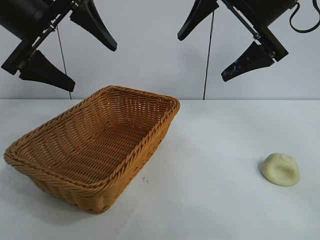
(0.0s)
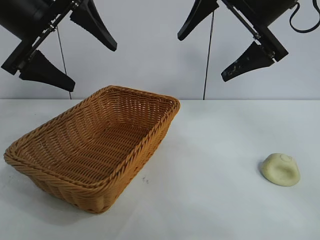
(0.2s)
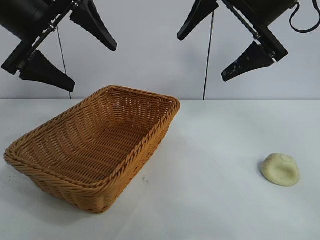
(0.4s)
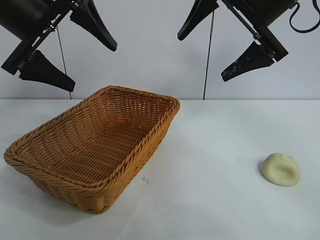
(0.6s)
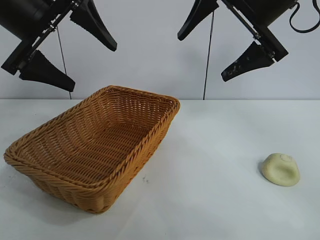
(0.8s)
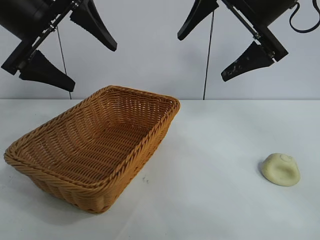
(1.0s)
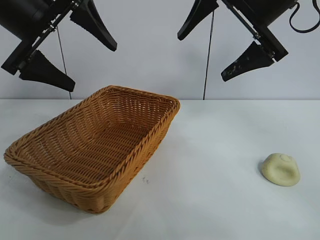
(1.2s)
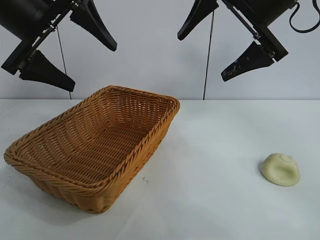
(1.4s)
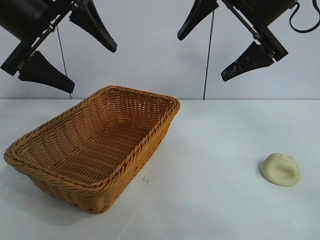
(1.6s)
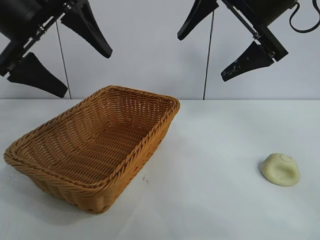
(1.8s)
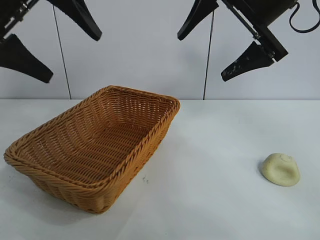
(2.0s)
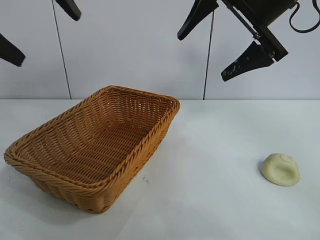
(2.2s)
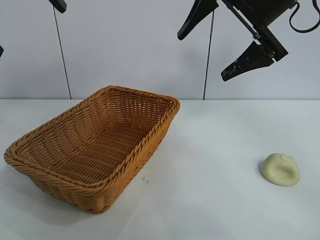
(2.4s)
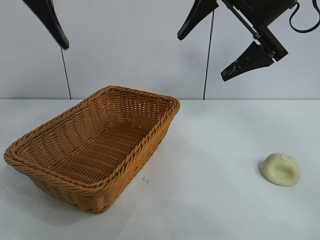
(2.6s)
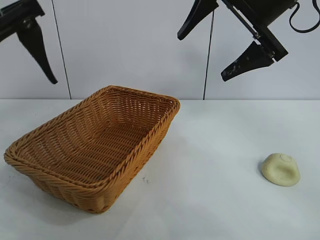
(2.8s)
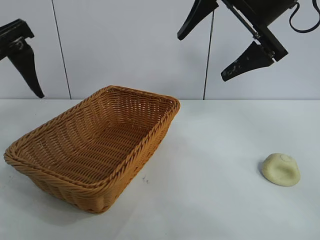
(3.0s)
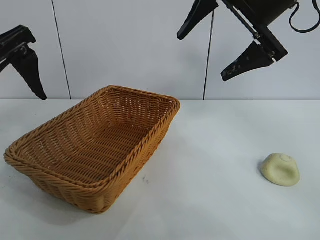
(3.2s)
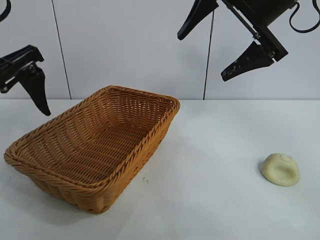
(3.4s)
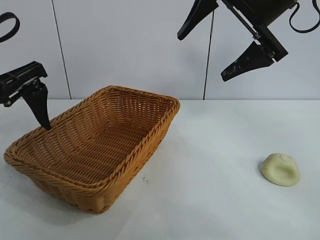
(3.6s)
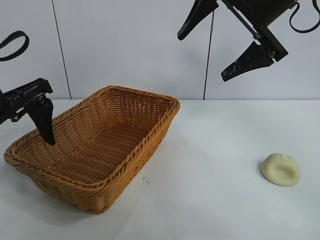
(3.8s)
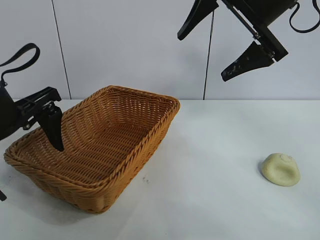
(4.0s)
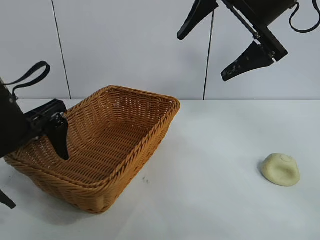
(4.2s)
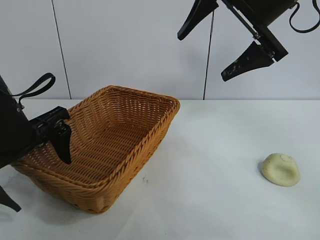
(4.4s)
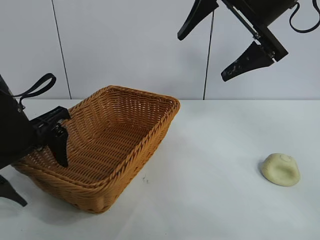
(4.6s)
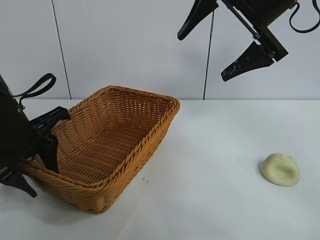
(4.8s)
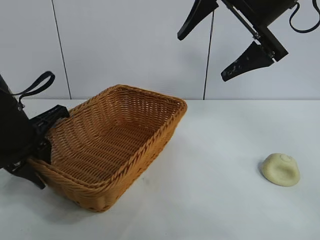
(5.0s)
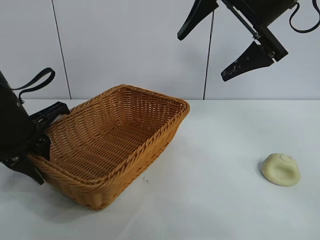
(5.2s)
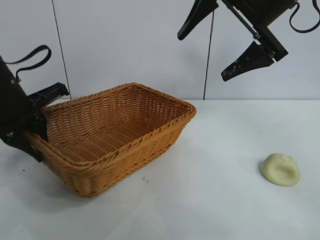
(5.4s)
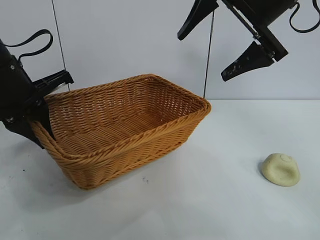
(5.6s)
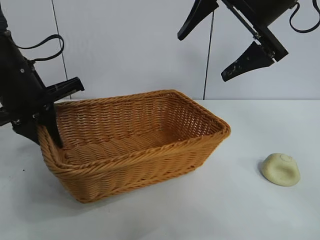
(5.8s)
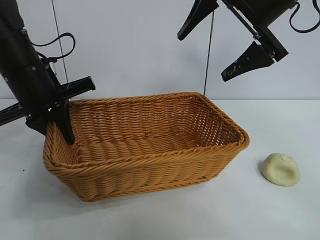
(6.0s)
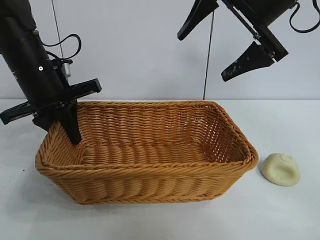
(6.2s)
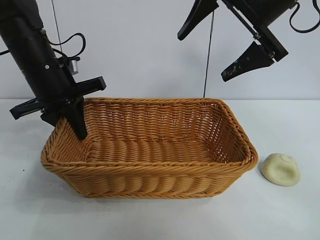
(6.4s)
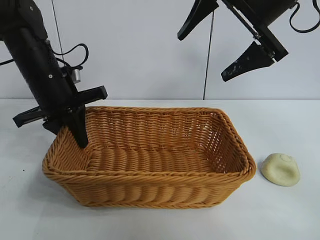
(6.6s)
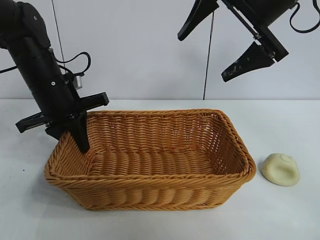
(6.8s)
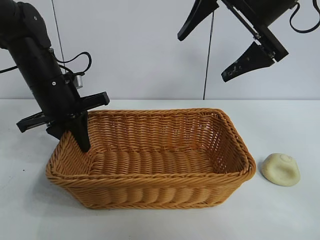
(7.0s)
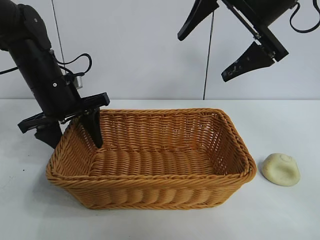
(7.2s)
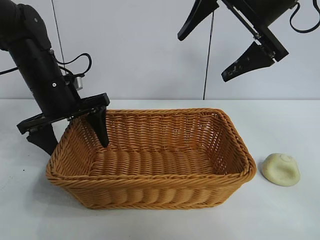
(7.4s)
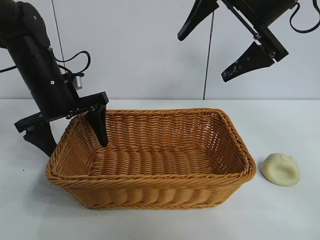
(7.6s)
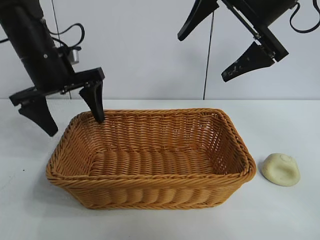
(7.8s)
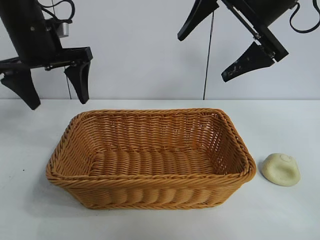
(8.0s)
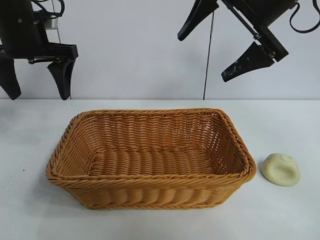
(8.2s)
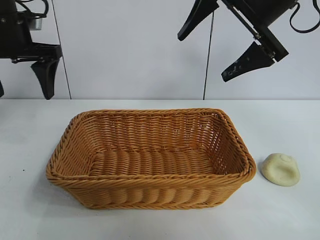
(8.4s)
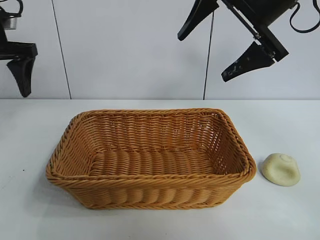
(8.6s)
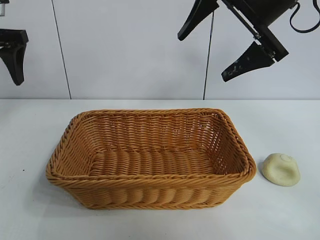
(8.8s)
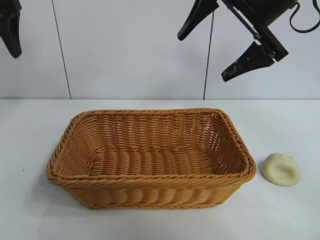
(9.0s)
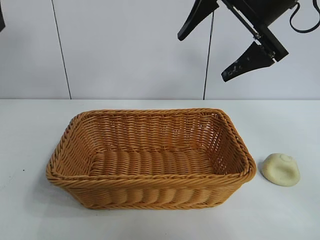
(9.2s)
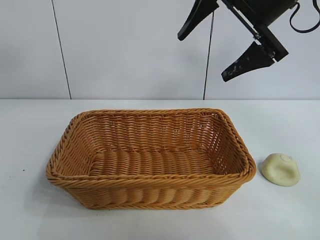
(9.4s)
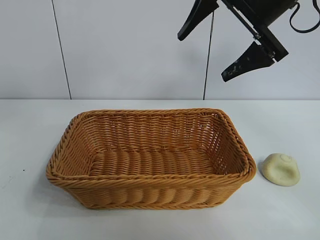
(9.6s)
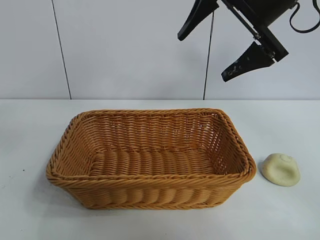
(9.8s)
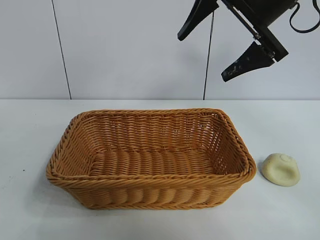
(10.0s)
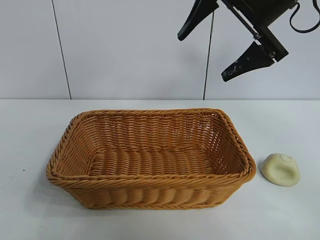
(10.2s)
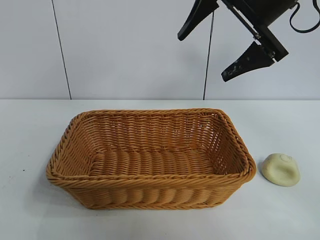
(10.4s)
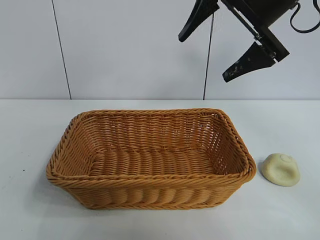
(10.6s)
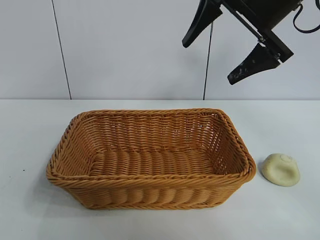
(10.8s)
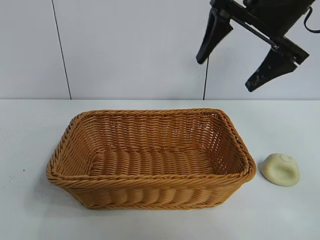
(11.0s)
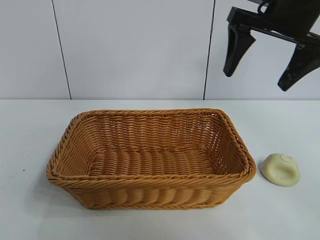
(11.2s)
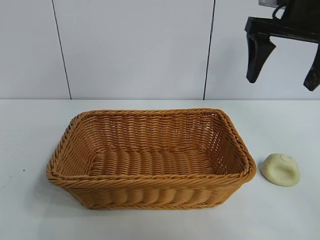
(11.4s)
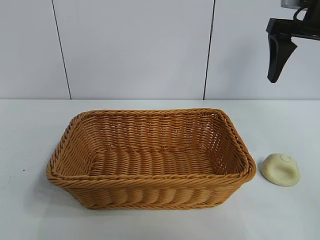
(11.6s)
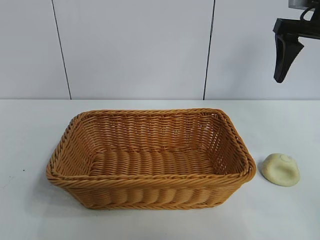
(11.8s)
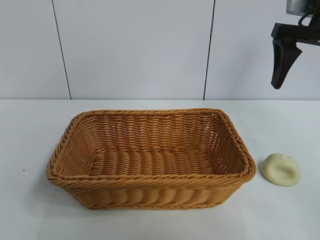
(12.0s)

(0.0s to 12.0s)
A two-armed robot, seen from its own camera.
Task of the whole recording: pick up the egg yolk pastry and put it into the basket.
Step, 1.6s - 5.0s: Grasp the basket with left gripper.
Step, 5.2s - 7.0s: Place the basket in the center of view with left gripper.

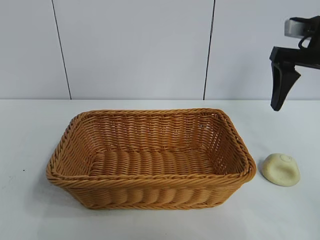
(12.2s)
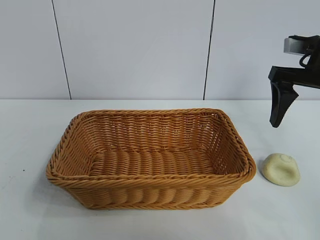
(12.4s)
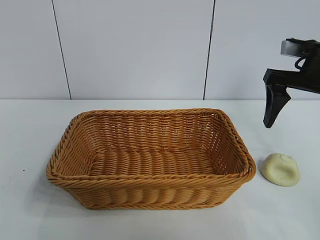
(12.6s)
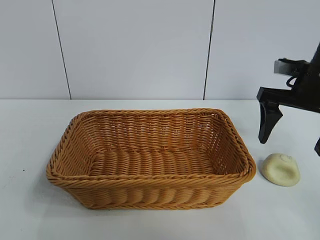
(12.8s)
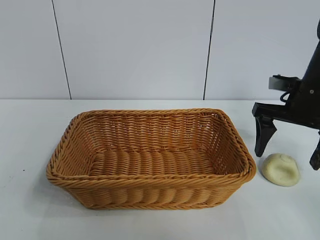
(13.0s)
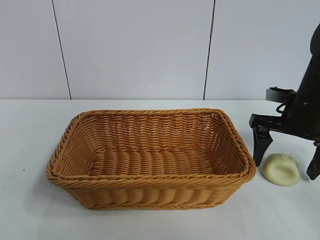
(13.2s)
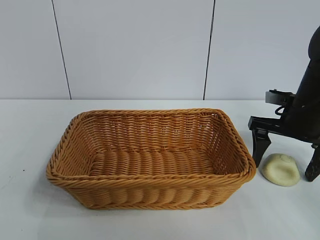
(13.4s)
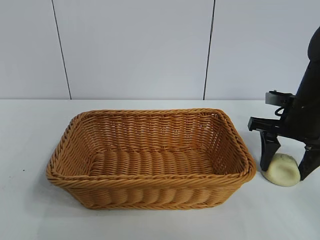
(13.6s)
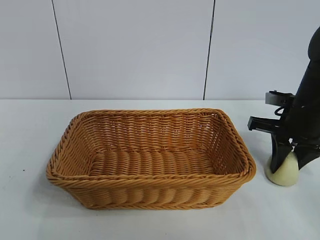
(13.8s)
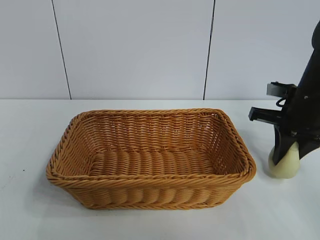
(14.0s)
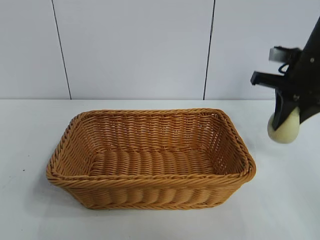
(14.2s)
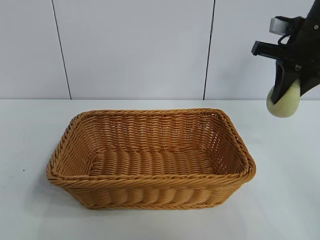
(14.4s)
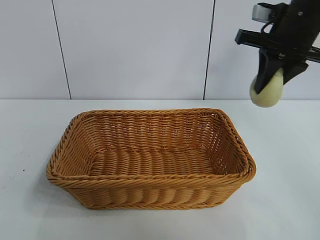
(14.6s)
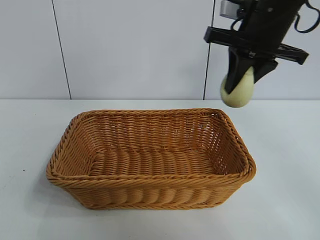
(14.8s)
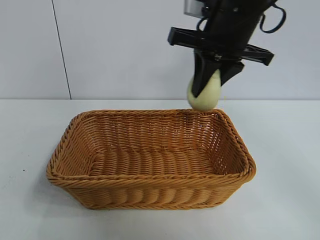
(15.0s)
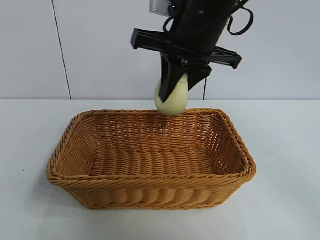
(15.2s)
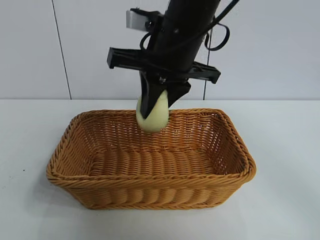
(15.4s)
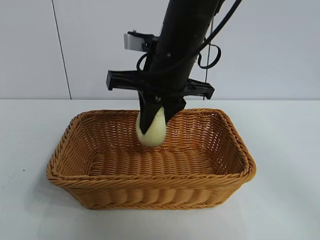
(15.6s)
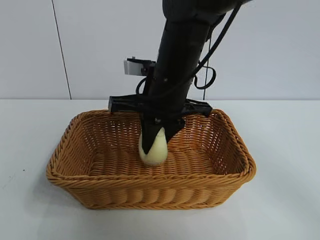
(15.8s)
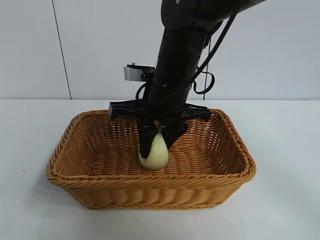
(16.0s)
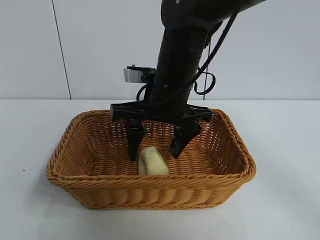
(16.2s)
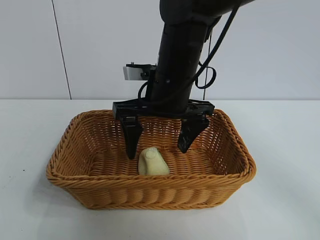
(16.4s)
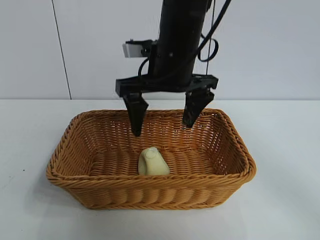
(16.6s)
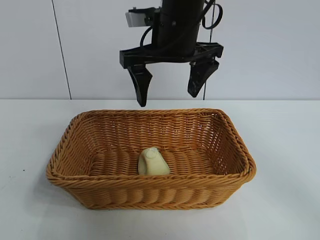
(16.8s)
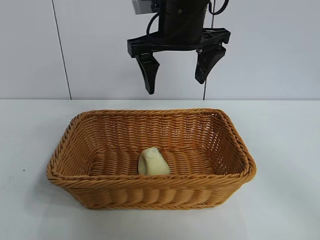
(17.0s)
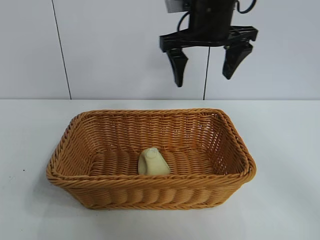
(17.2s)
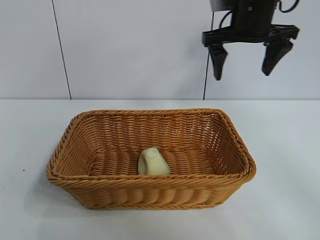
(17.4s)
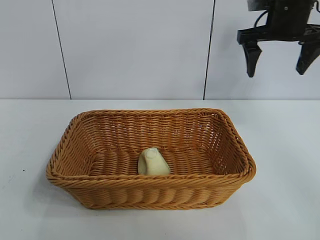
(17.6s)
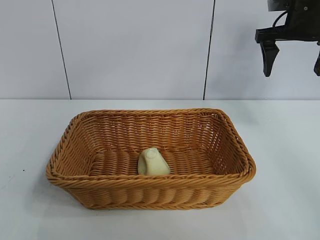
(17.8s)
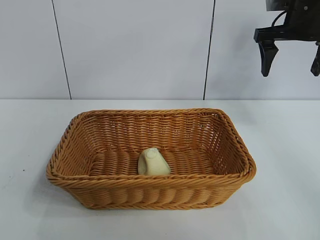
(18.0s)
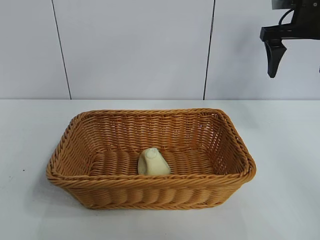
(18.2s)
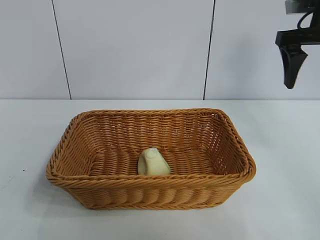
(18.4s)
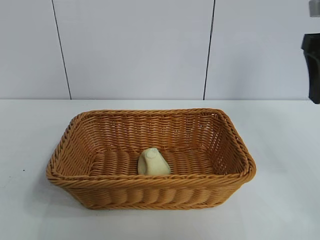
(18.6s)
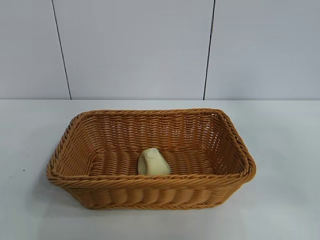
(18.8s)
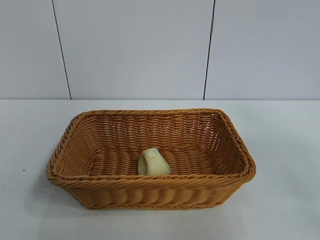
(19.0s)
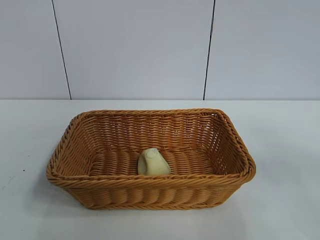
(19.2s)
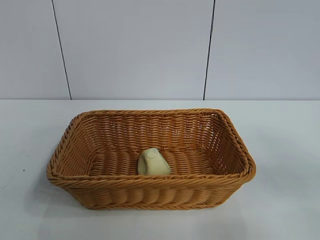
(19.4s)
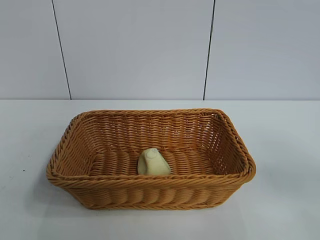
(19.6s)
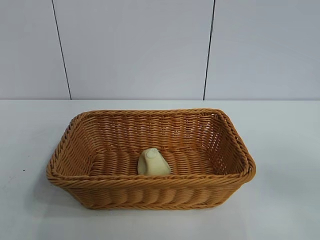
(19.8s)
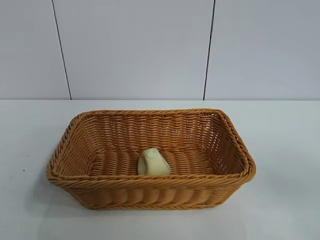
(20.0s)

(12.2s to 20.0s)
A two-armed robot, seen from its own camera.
Task of the whole recording: pick up the egg yolk pastry and put it into the basket.
Step, 14.0s - 16.0s: Place the egg yolk pastry in the basket with right gripper.
